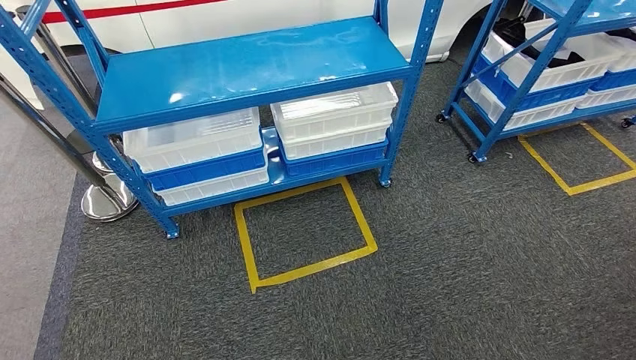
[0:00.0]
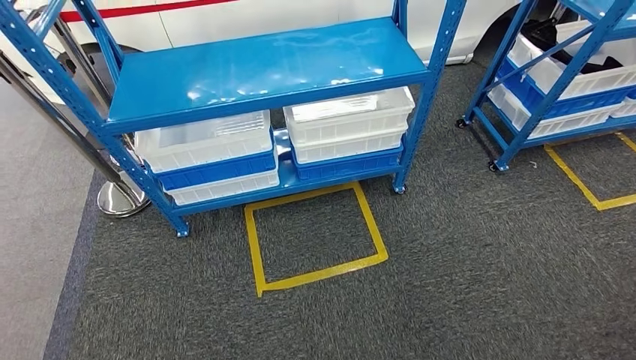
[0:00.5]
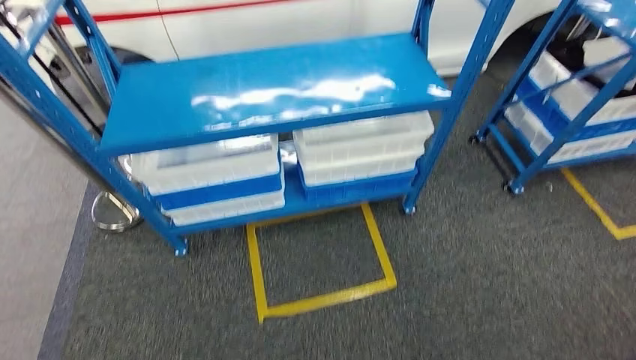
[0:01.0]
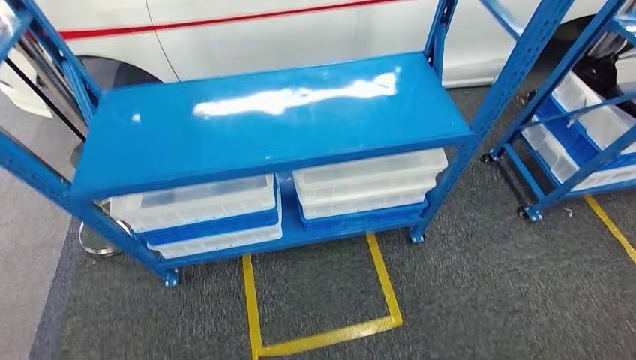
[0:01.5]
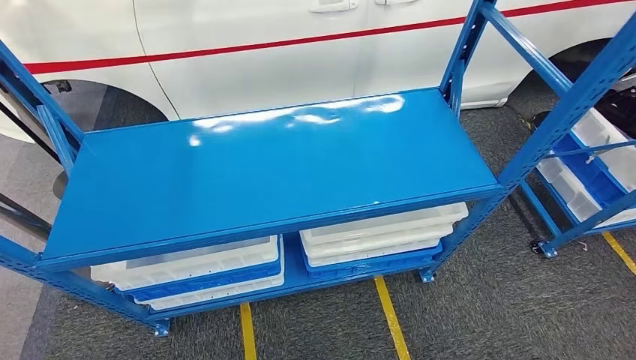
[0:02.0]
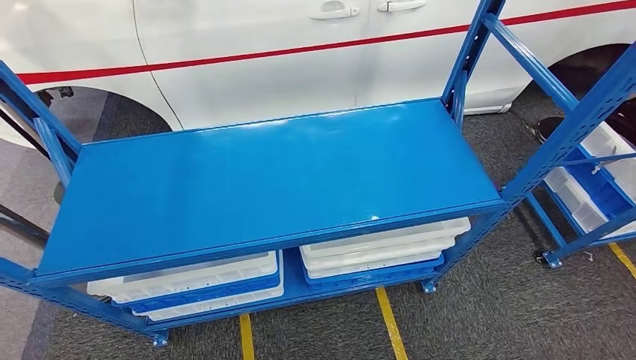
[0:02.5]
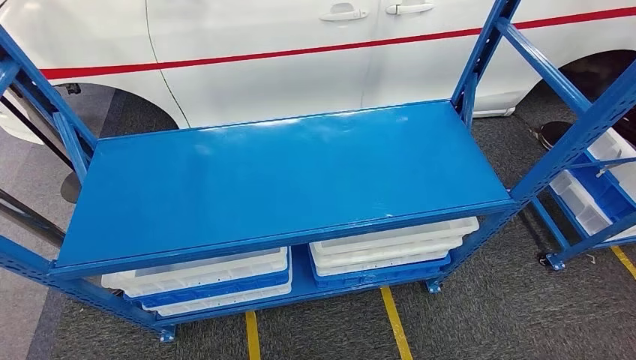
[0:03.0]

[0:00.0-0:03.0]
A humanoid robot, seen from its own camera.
Step, 0:00.0 to 0:03.0: Move to the initial position of the shelf.
